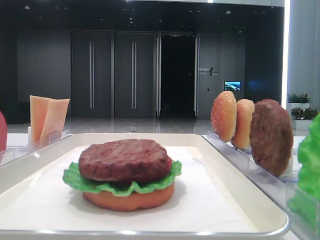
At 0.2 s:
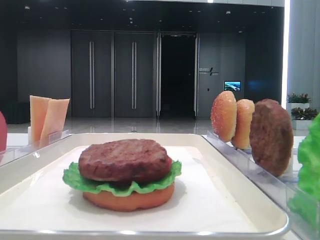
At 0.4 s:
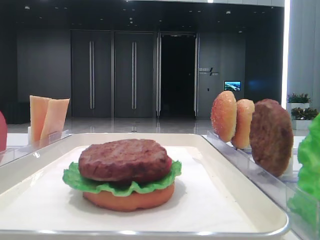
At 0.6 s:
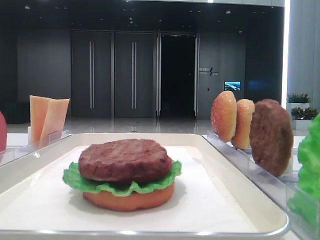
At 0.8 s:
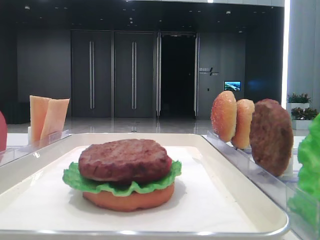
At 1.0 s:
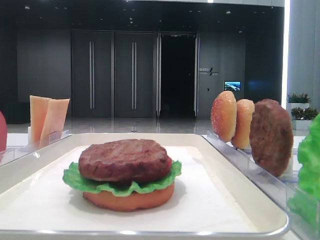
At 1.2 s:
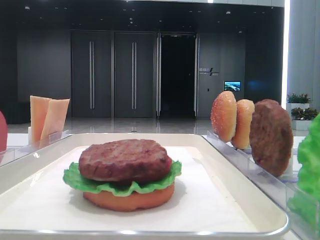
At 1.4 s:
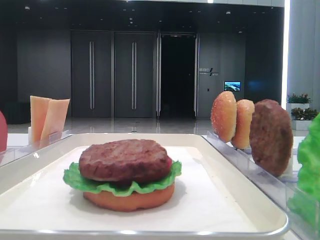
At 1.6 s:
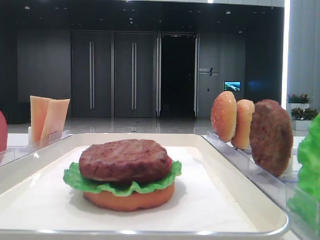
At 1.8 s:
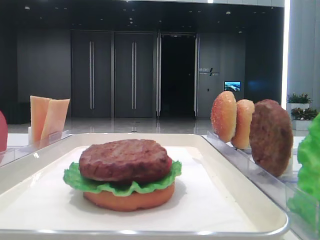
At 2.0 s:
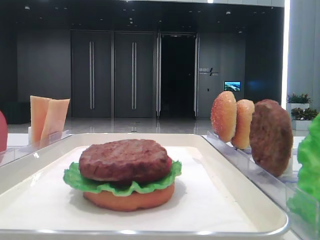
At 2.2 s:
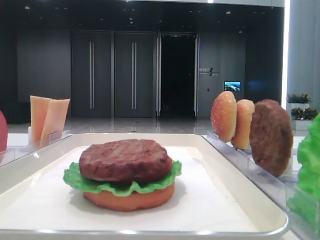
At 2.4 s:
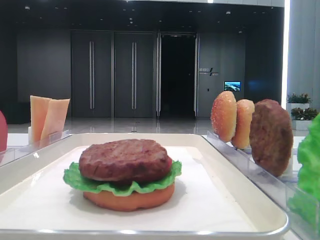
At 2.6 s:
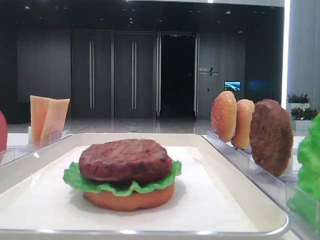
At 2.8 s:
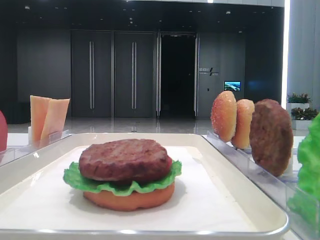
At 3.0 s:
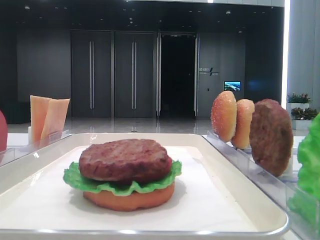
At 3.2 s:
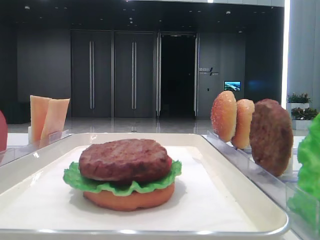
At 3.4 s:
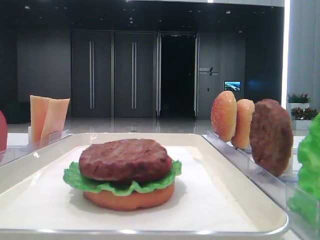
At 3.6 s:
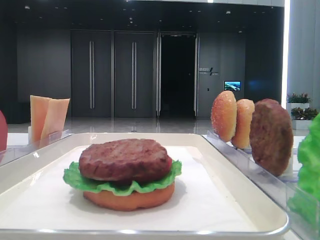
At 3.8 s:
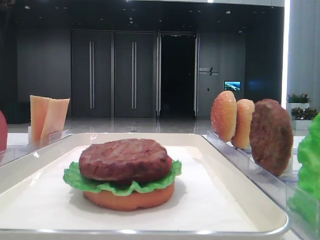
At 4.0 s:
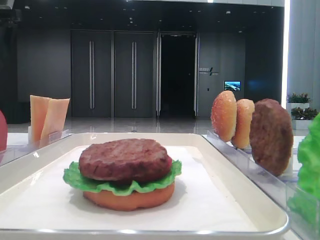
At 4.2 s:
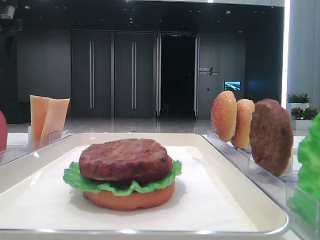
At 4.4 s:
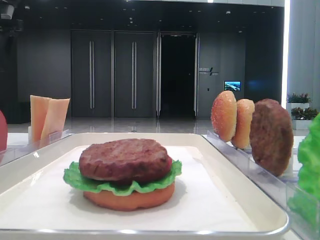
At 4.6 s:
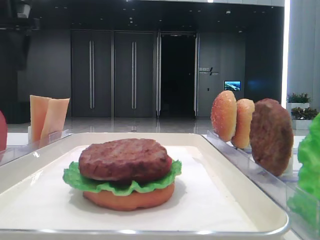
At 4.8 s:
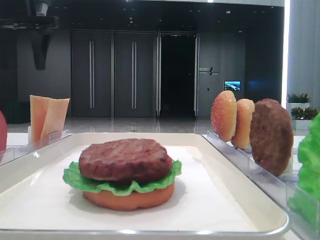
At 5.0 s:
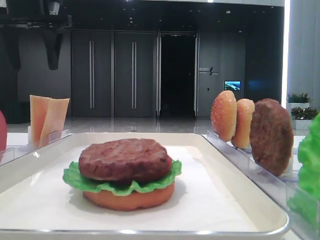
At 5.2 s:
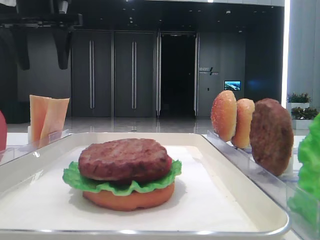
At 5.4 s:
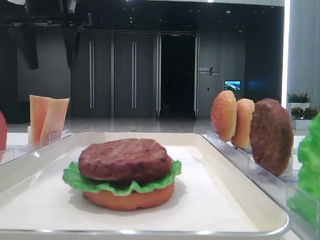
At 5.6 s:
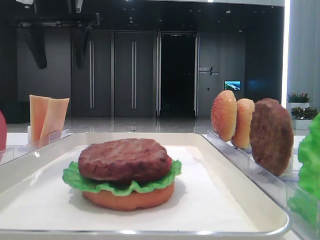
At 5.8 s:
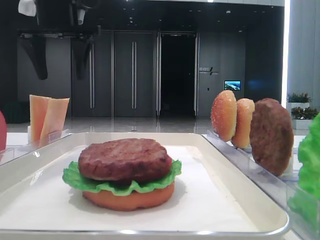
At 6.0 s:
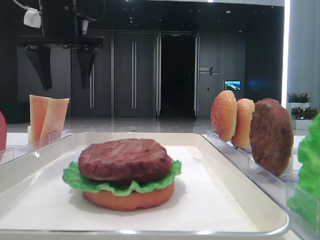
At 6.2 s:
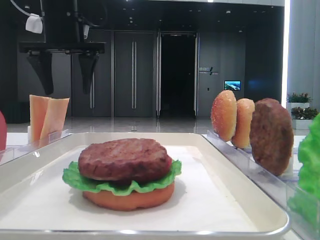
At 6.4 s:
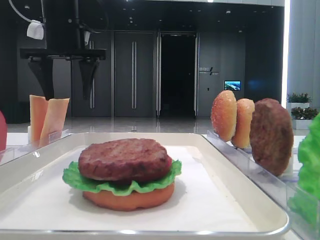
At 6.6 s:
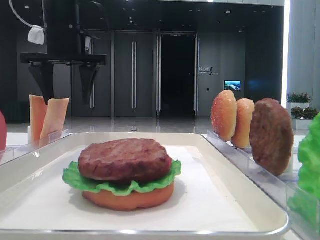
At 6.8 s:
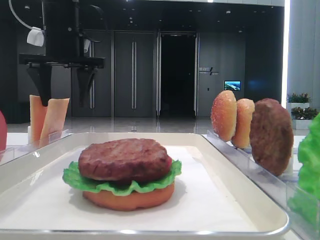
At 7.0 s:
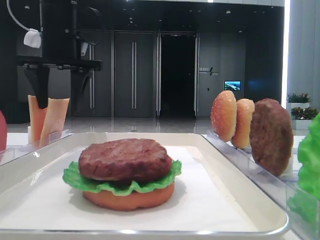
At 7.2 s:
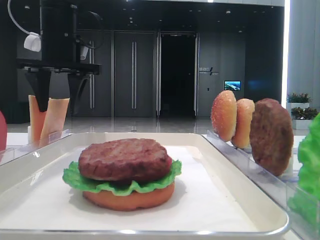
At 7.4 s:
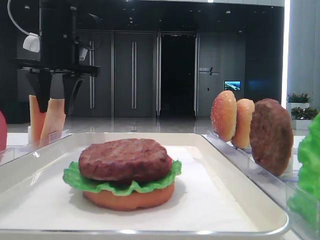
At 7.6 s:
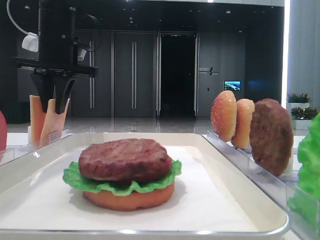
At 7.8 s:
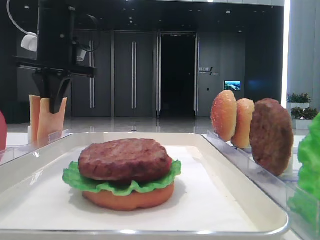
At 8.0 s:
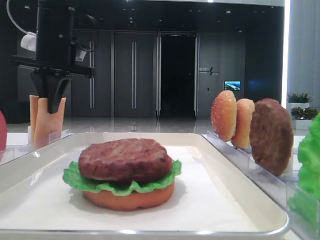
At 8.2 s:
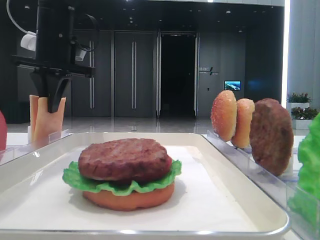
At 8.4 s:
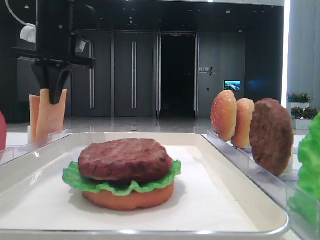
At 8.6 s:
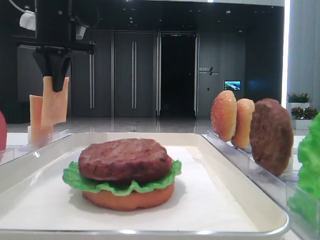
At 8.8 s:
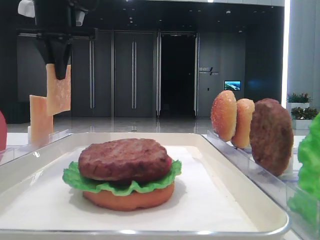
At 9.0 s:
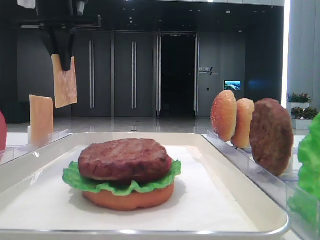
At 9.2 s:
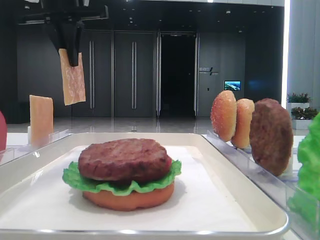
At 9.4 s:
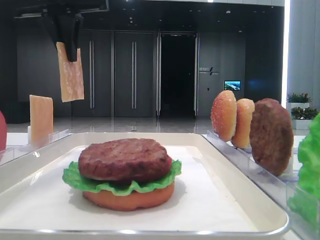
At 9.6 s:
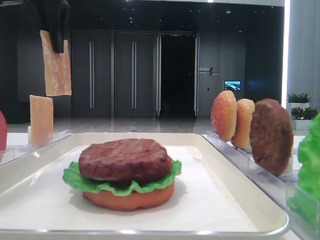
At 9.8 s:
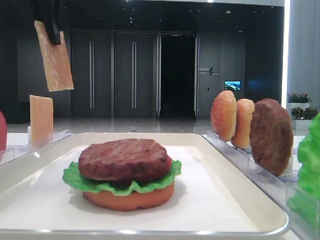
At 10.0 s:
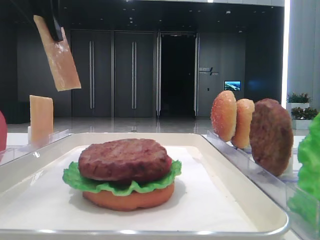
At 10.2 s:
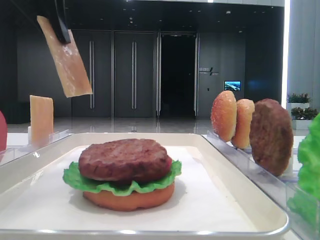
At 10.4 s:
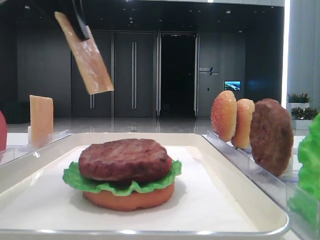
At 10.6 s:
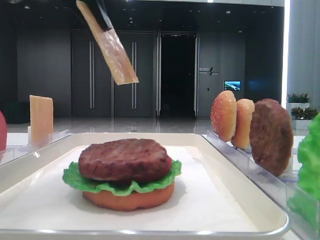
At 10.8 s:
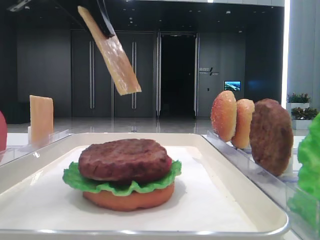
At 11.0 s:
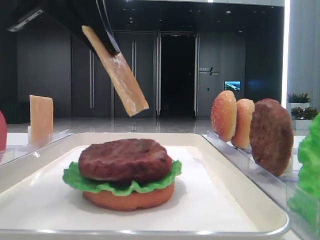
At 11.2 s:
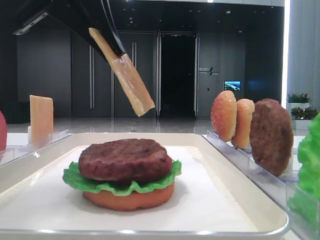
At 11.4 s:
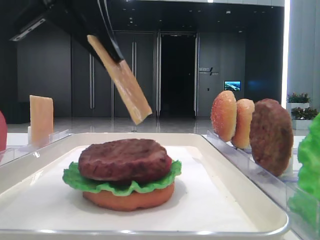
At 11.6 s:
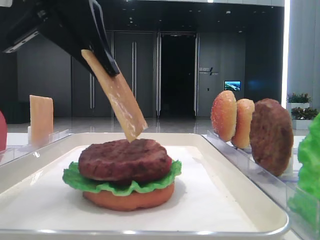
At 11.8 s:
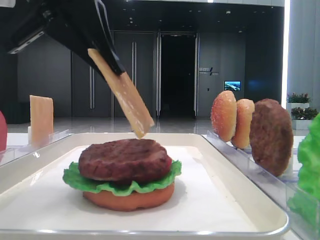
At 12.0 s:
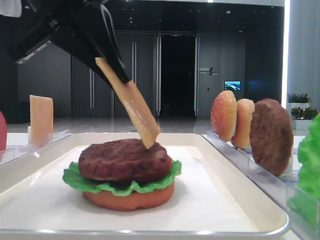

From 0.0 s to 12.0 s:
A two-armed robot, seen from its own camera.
Step, from 0.0 s to 7.6 s: Pick up the cheese slice with the left hand.
From 4.4 s to 6.0 s: The left gripper shifts about 15 cm to the right.
From 6.0 s to 7.6 s: The left gripper closes up.
From 7.6 s to 9.0 s: The left gripper moves upward, approximately 5 cm.
From 9.0 s to 10.4 s: The left gripper moves backward, some 15 cm.
From 10.4 s to 12.0 s: The left gripper is displaced downward by roughly 5 cm.

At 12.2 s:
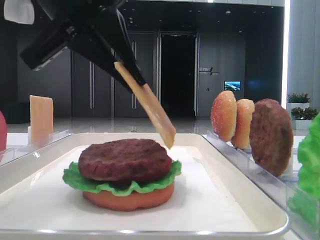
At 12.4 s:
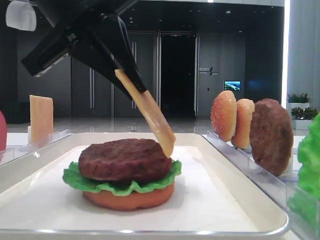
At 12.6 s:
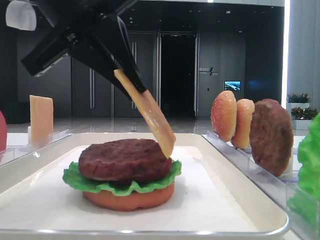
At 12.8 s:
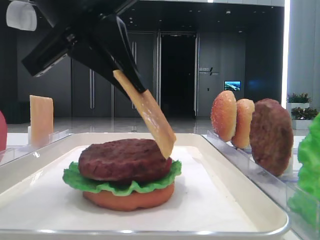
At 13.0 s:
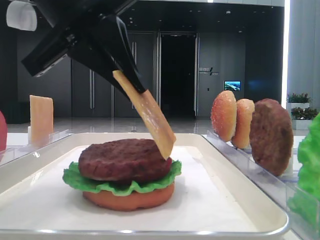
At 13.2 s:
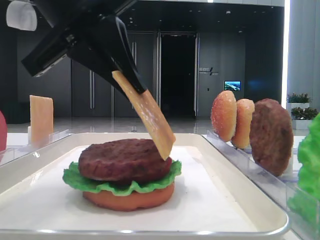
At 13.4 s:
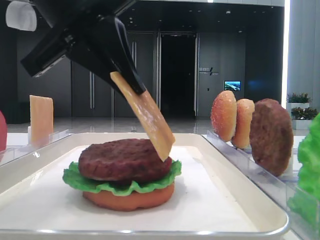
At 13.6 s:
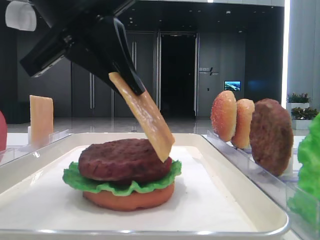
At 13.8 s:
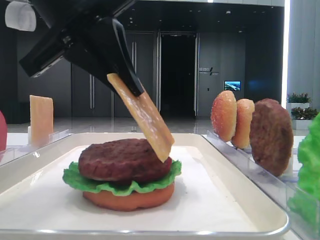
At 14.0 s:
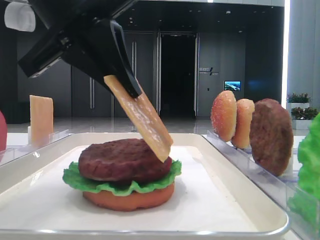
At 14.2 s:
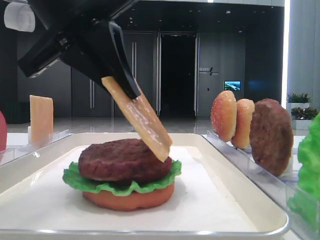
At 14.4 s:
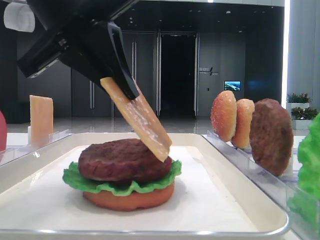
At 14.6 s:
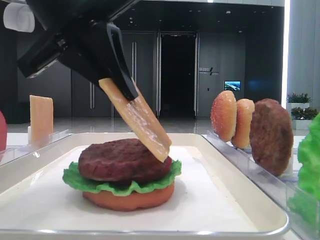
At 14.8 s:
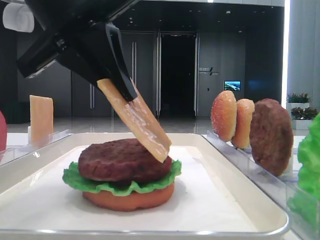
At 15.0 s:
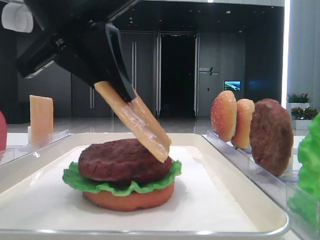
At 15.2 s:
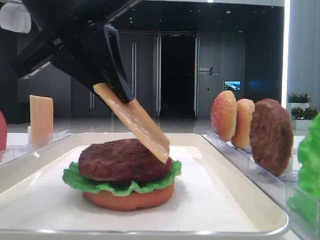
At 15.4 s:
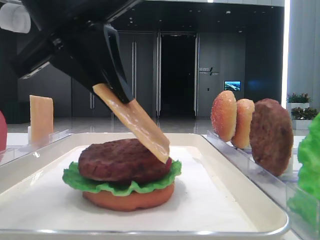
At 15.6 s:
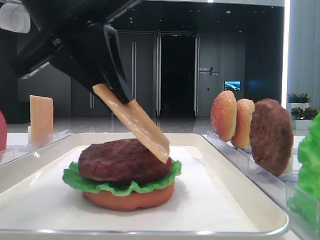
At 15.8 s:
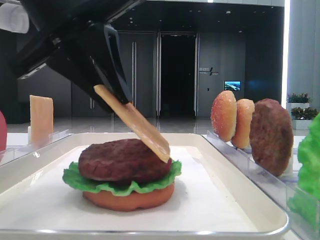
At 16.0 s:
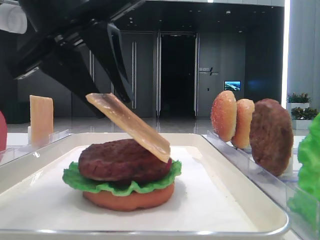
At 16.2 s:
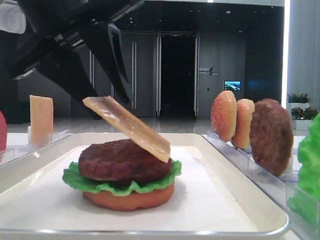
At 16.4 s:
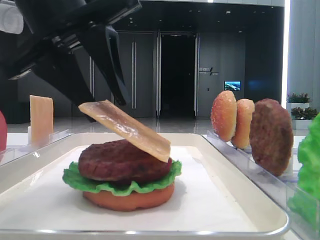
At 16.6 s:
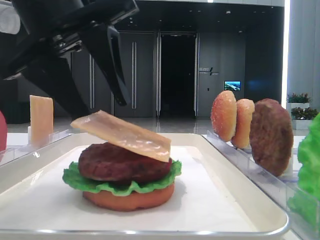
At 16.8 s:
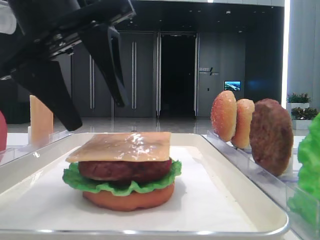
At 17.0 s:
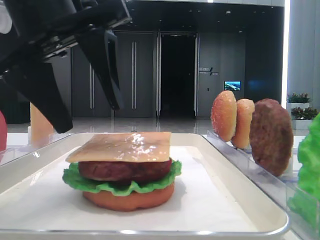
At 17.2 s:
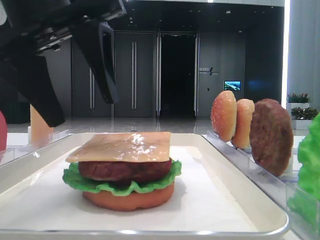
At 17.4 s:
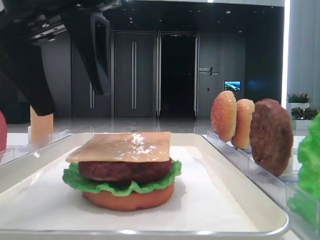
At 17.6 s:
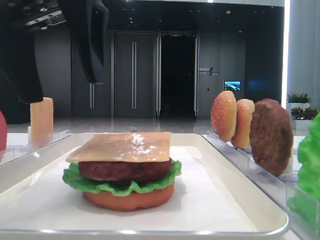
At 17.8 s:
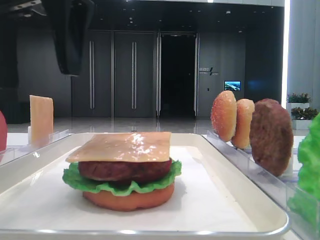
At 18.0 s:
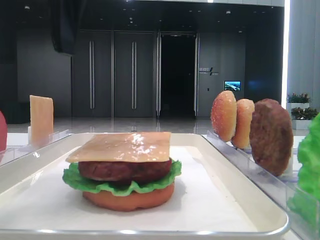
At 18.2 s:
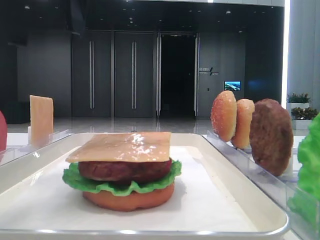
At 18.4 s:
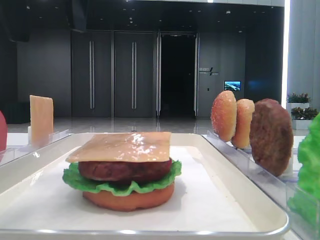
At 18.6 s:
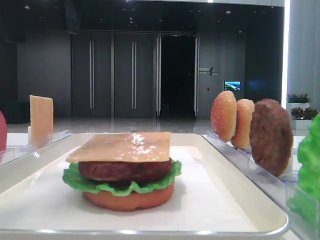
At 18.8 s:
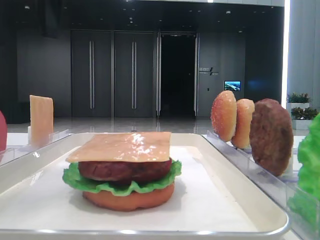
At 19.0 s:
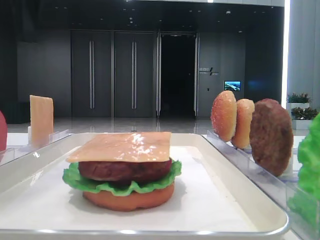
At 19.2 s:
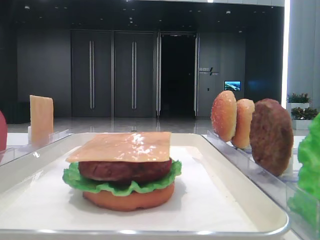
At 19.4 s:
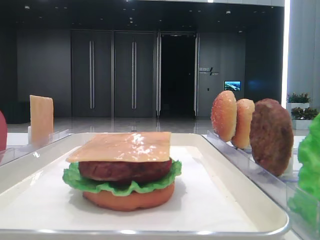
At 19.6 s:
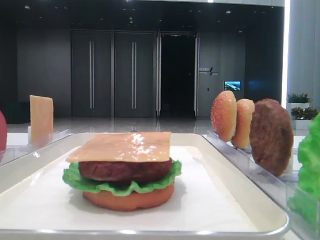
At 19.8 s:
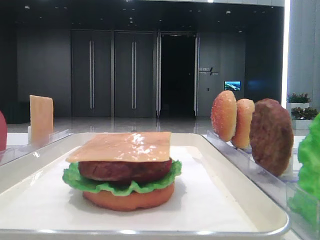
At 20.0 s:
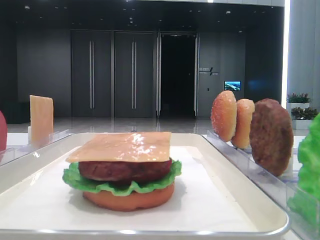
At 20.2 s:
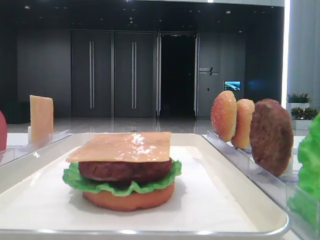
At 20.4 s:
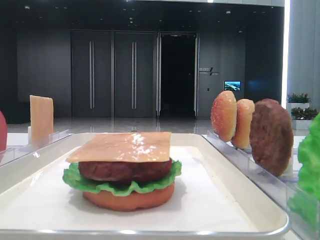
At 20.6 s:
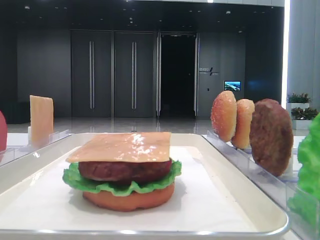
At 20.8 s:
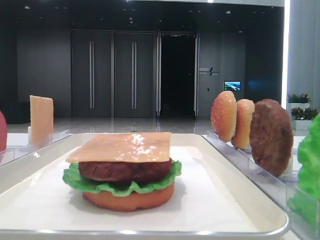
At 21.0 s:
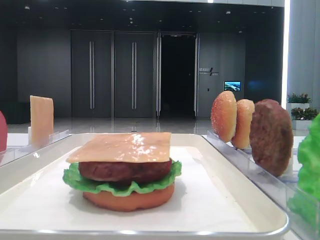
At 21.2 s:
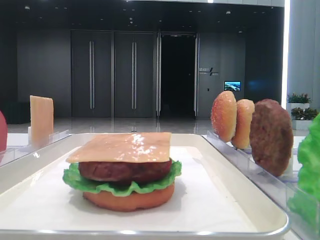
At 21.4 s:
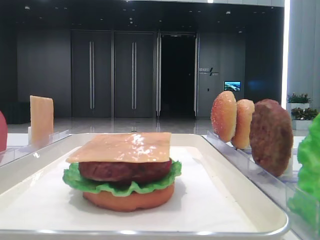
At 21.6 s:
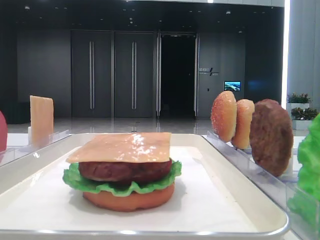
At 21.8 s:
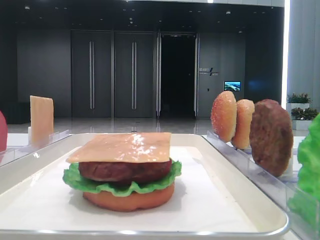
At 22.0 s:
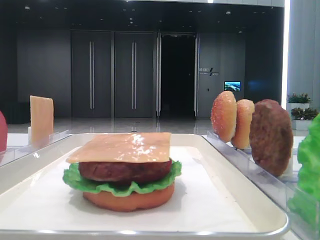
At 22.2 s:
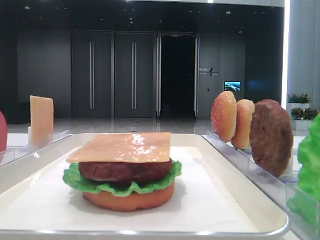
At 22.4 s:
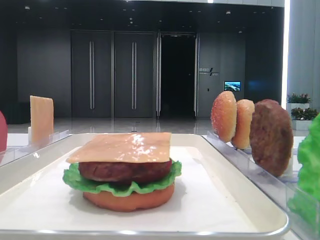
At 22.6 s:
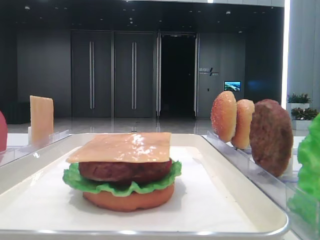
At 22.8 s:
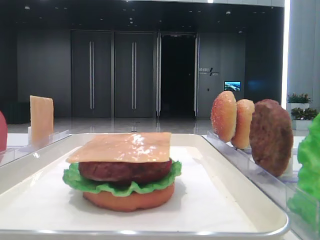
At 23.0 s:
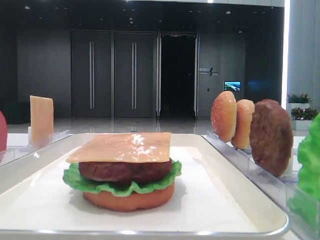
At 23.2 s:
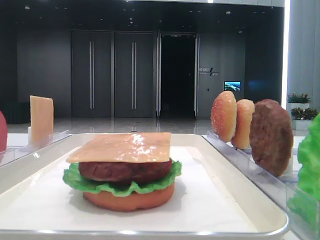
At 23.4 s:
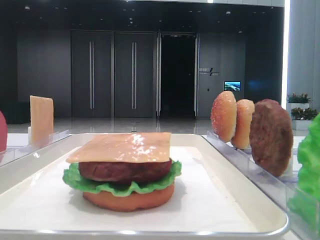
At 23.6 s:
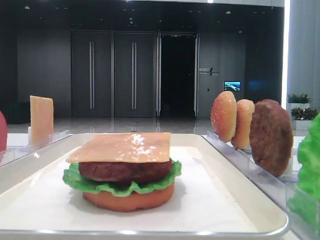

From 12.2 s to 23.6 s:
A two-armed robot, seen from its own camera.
Step, from 12.2 s to 16.6 s: Place the cheese slice on the patty with the left hand.
From 12.2 s to 13.6 s: Both grippers stay about where they are.
From 13.6 s to 15.0 s: Both grippers stay about where they are.
From 15.0 s to 16.4 s: Both grippers stay put.
From 16.4 s to 17.8 s: The left gripper opens up.
From 17.8 s to 19.4 s: The left gripper moves to the left and forward, some 15 cm.
